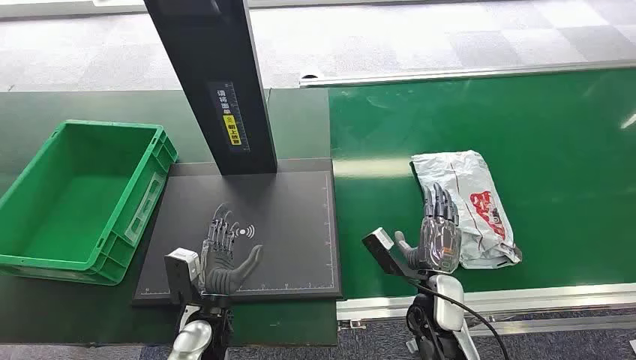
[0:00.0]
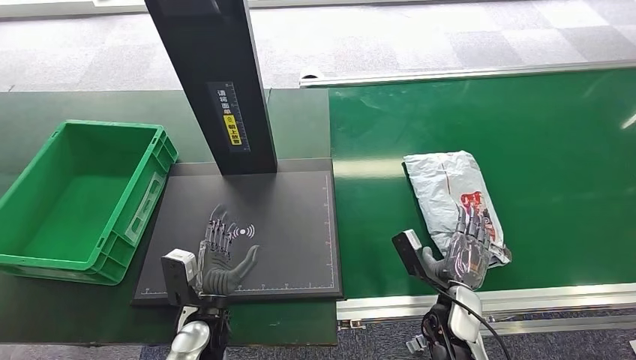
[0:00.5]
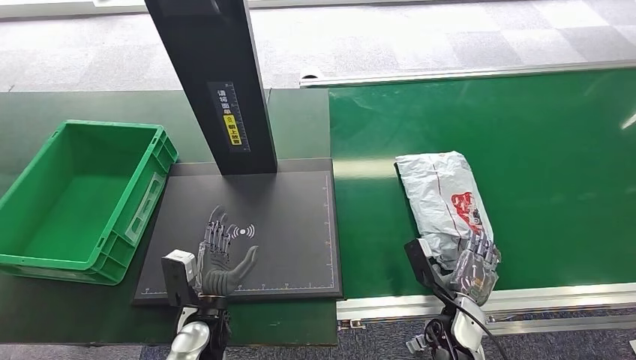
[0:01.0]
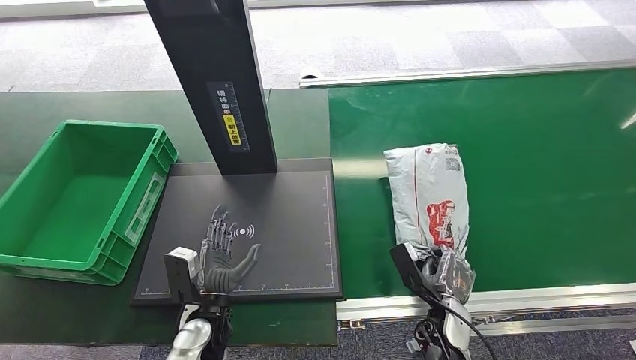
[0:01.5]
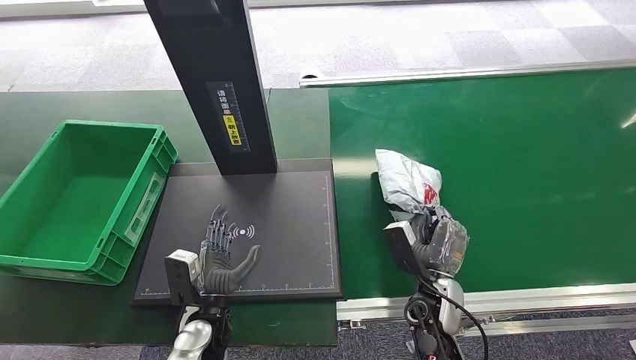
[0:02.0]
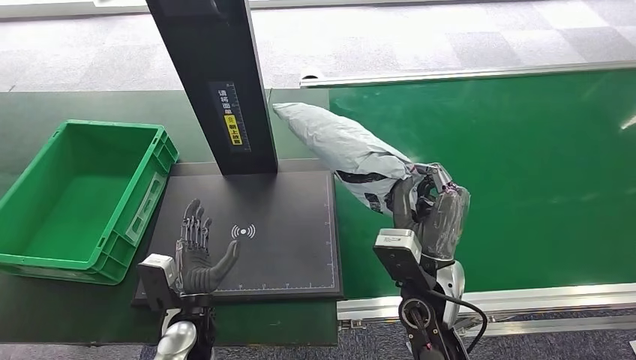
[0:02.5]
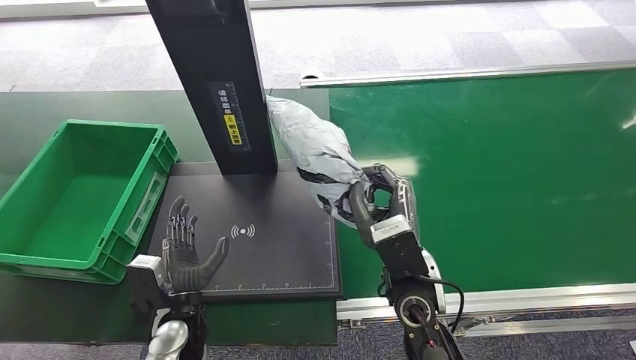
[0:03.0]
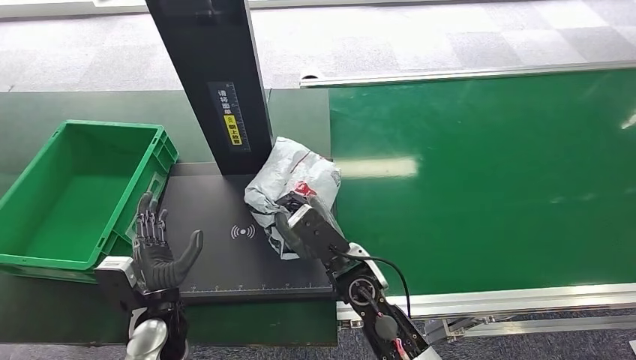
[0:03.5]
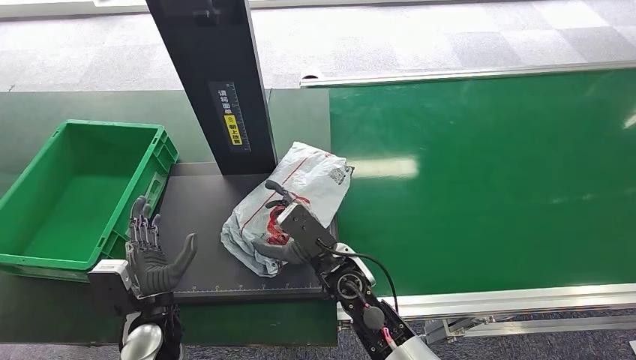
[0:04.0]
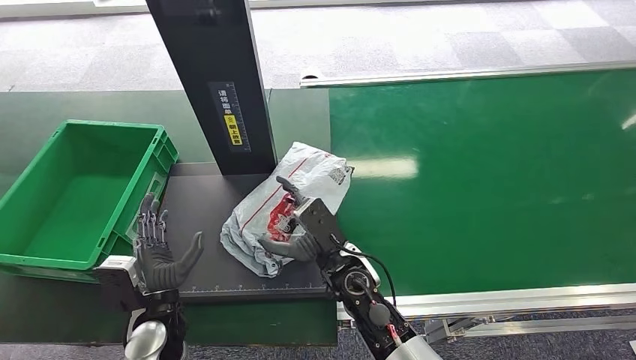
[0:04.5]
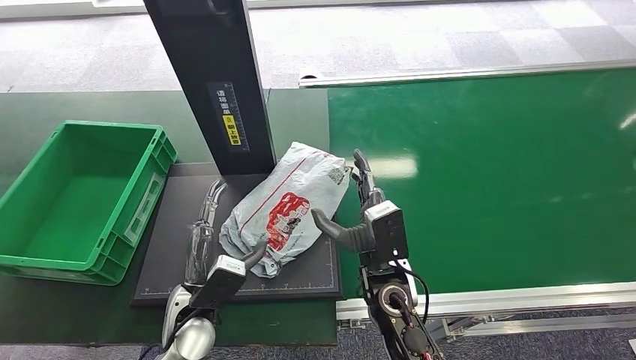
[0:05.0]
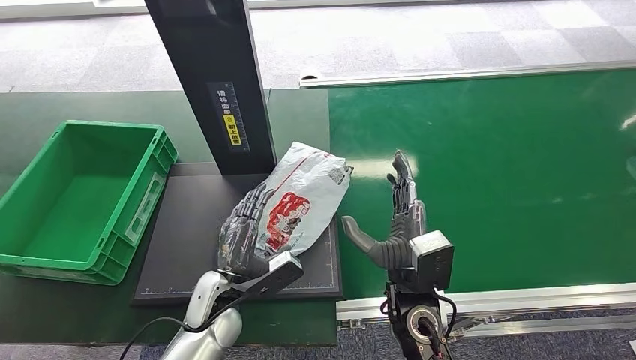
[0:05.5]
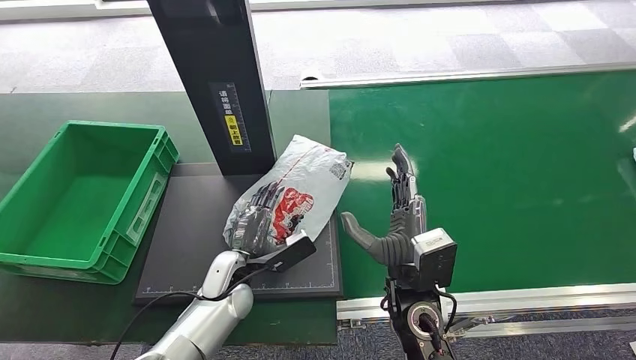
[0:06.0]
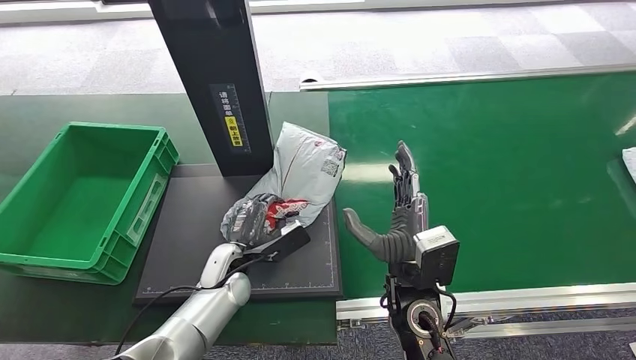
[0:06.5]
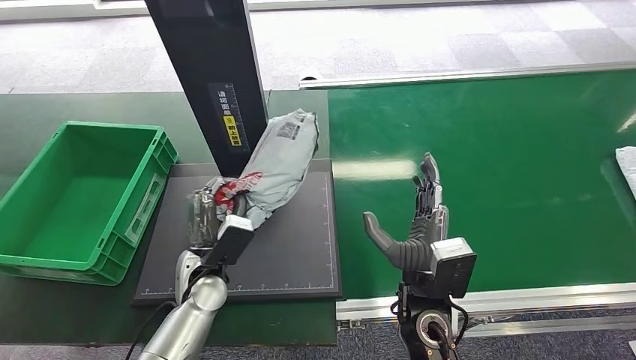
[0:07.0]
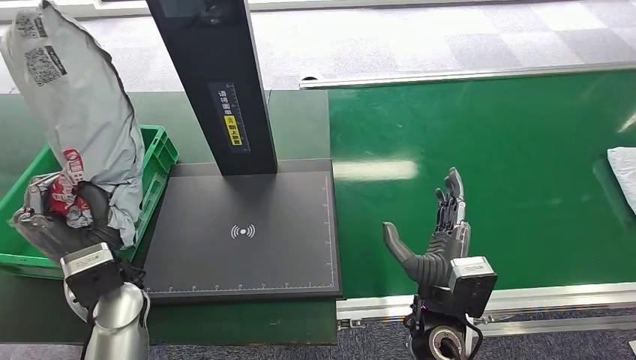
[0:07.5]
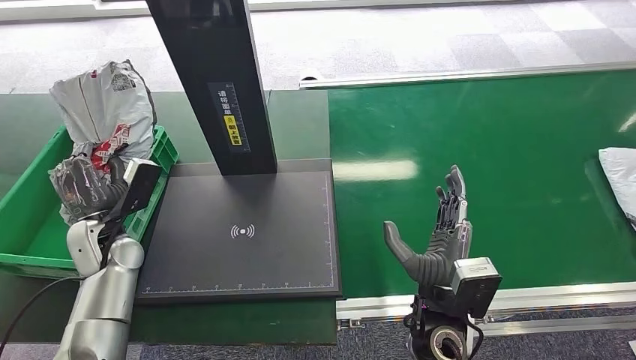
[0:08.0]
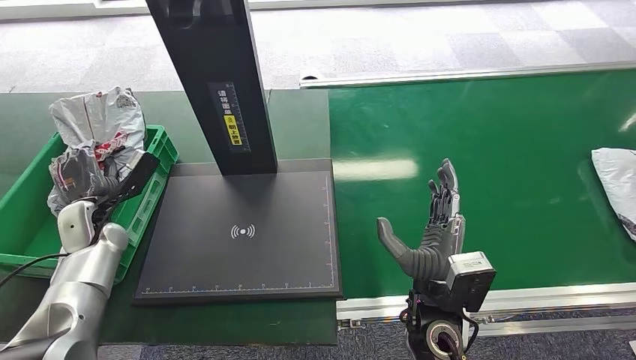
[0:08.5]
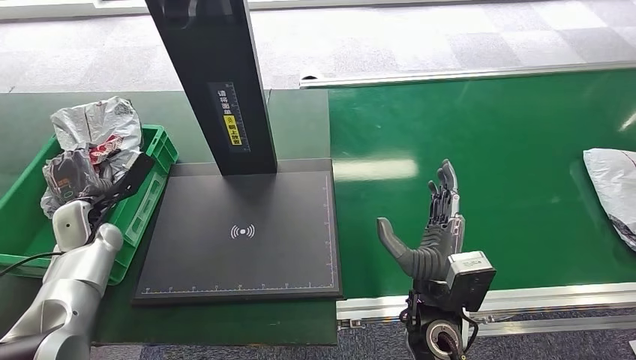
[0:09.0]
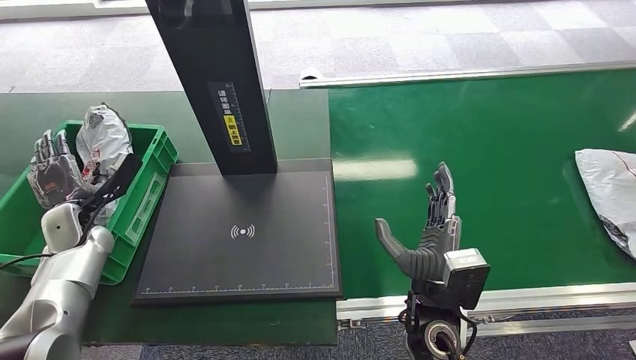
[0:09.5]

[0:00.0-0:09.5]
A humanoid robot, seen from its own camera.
Step, 0:00.0 to 0:02.0: Pick up the package from the conveyor belt.
Step, 0:02.5 to 0:04.0: Place the package onto the inbound machine.
Step, 0:04.5 to 0:07.0: Pick up the package from the inbound machine.
Step, 0:07.5 to 0:09.5: Place the package into the parcel locker.
0:02.0 to 0:04.0: The right hand heads to the left and upward, covering roughly 15 cm. Meanwhile the left hand travels to the left by some 10 cm.
0:04.0 to 0:05.5: The two hands go some 10 cm to the right.
